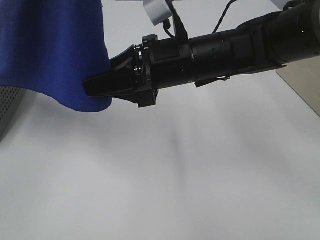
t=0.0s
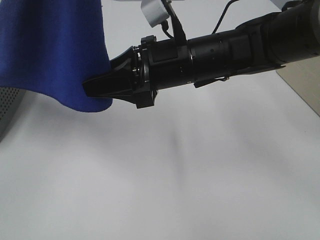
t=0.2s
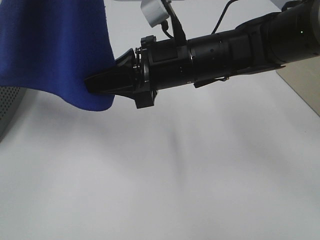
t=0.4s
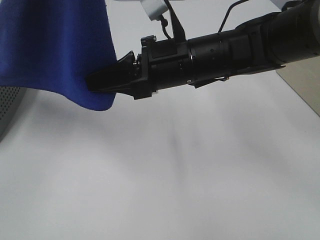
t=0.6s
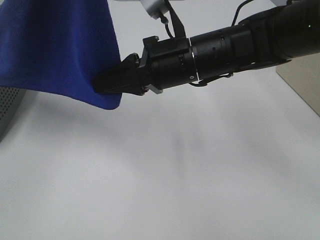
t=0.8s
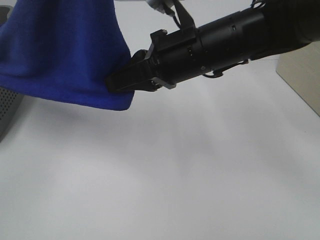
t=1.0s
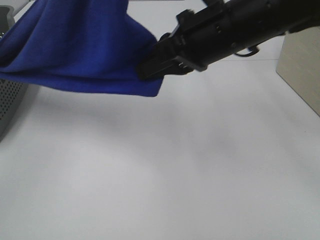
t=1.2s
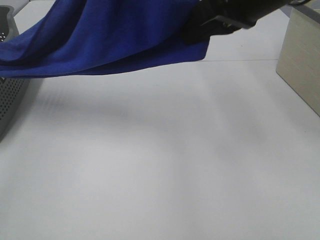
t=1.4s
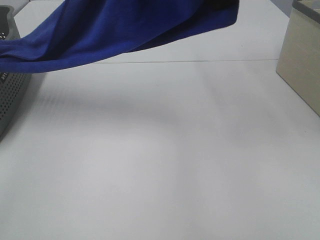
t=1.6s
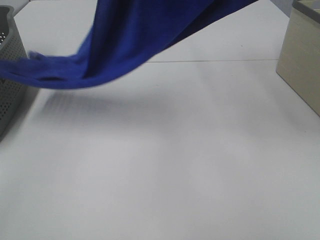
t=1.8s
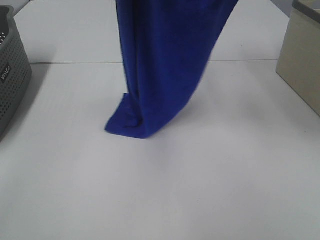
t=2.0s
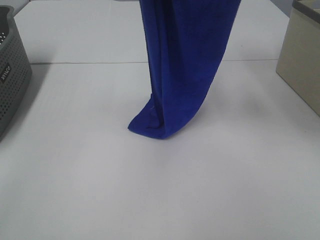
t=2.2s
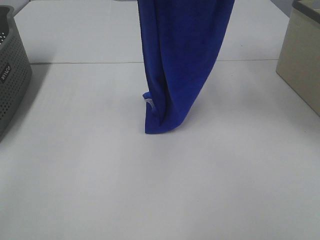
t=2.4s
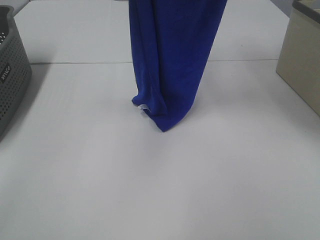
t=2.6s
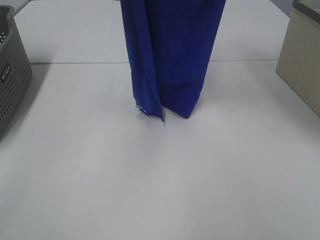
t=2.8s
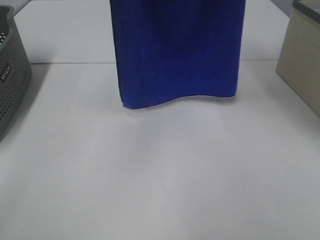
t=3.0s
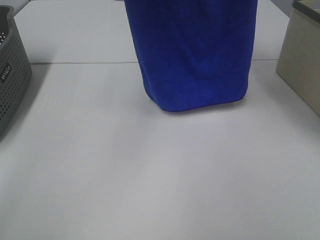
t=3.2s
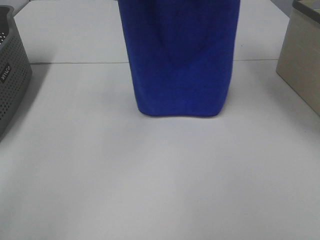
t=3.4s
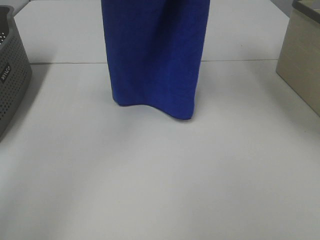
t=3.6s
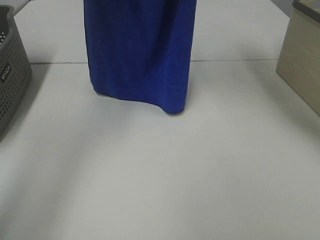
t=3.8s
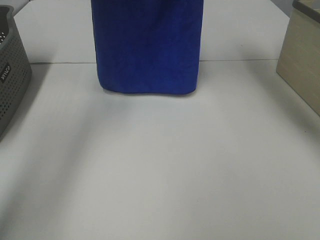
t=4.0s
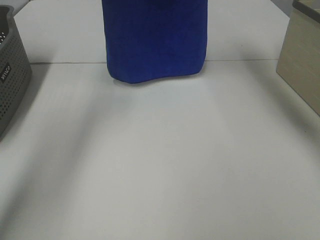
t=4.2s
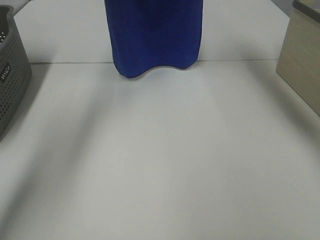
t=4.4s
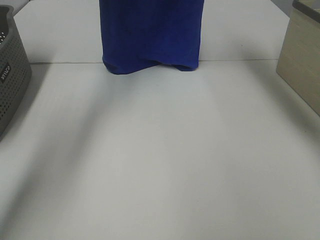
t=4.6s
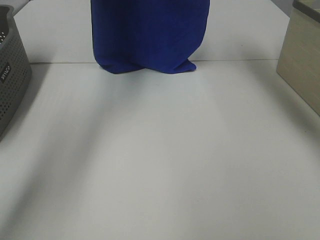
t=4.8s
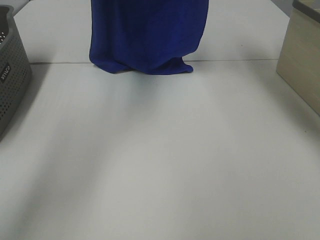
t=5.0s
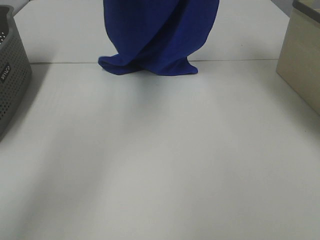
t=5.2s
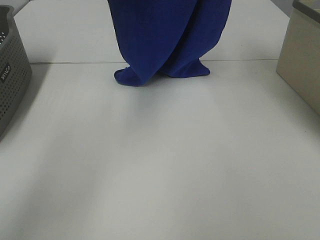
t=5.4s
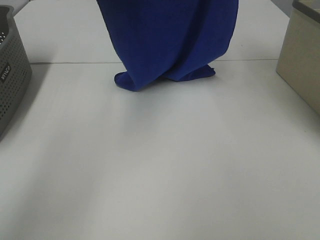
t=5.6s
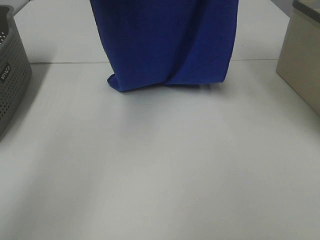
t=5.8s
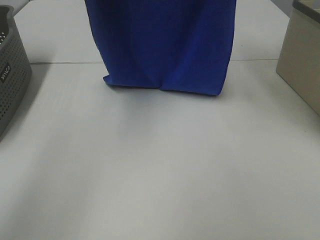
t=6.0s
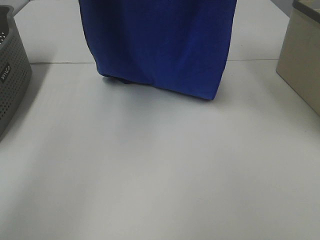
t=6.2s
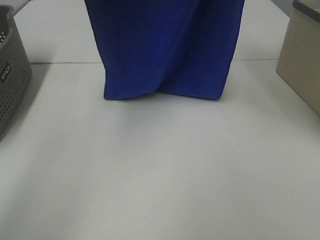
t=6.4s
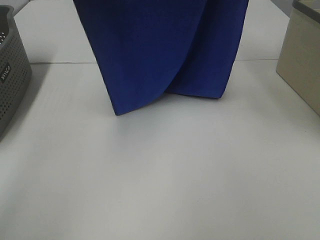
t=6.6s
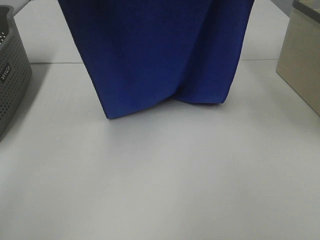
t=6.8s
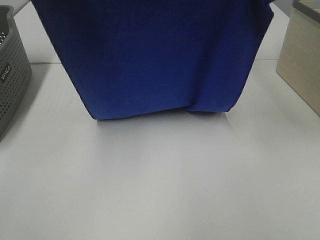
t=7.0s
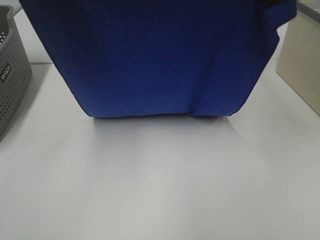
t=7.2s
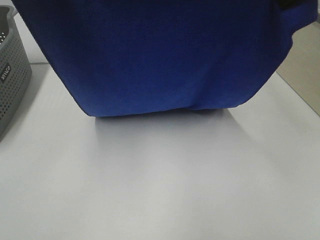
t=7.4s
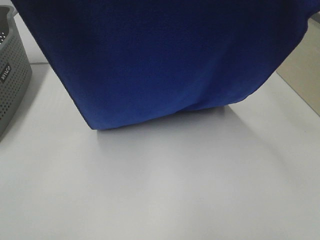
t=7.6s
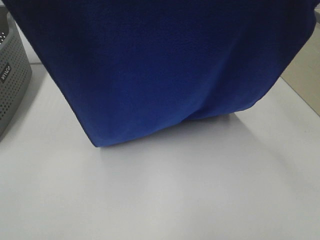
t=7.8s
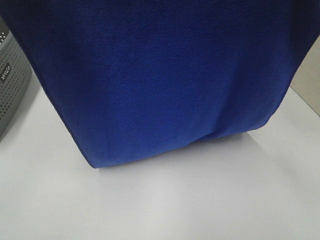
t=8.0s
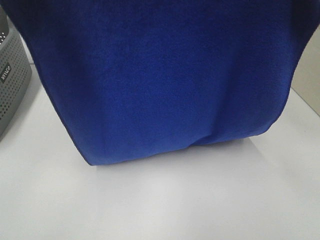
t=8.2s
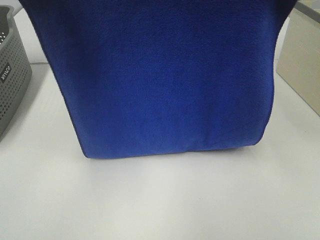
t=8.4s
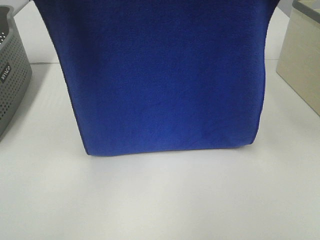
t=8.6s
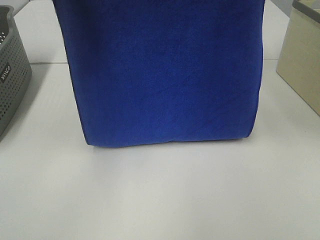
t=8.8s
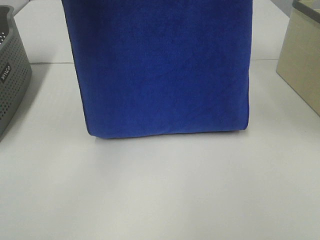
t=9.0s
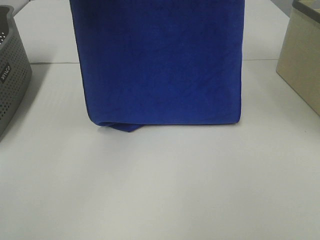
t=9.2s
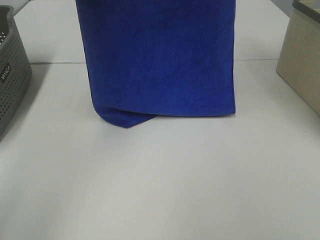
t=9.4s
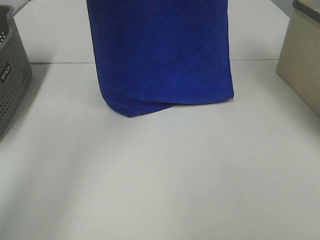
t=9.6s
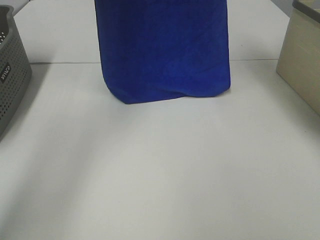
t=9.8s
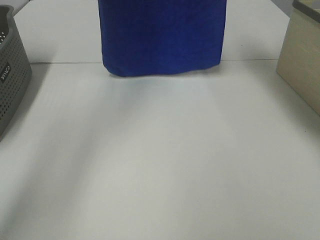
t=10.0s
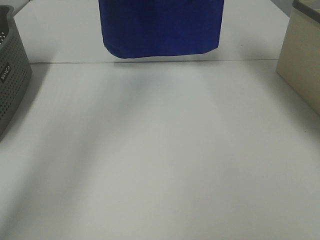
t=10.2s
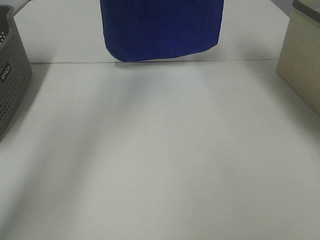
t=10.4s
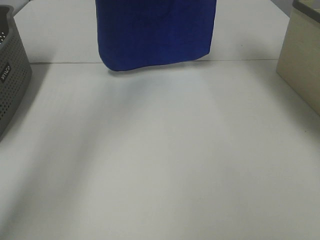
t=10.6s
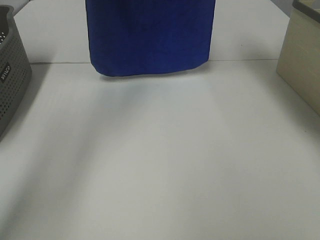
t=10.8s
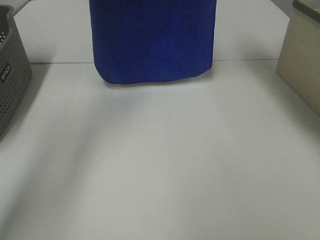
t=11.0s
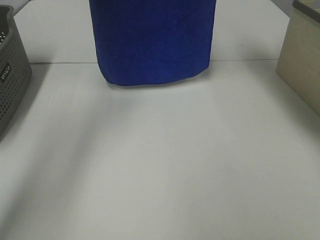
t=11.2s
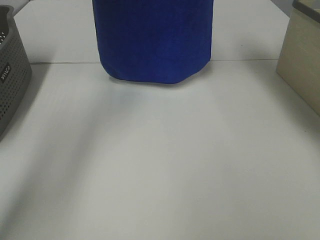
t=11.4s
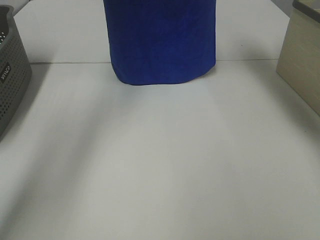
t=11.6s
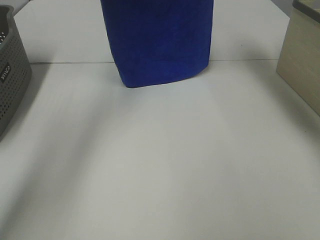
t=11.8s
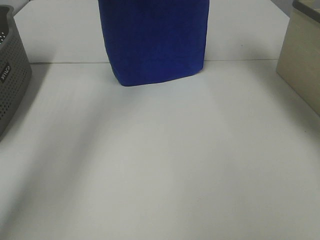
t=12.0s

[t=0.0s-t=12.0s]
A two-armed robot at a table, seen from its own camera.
Task of the whole recording: Remove the towel and place it.
t=0.0s to t=1.6s: The right gripper heads upward and to the right, covering roughly 20 cm, and closes up; the left gripper travels forward and to the right by about 10 cm.
t=1.6s to t=3.0s: The left gripper shifts roughly 10 cm forward and to the left. The right gripper goes some 15 cm upward.
t=3.0s to t=4.4s: The grippers both shift forward by some 15 cm.
t=4.4s to t=6.0s: The two grippers go about 10 cm backward.
t=6.0s to t=7.6s: Both grippers move backward, roughly 15 cm.
t=7.6s to t=9.0s: The right gripper heads forward, covering some 10 cm; the left gripper goes some 5 cm forward.
t=9.0s to t=10.4s: Both grippers move forward, some 15 cm.
t=10.4s to t=12.0s: The grippers stay close to where they were, moving slightly.

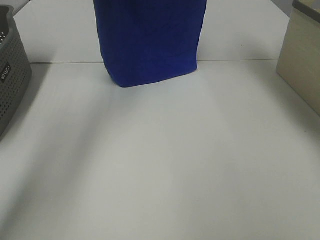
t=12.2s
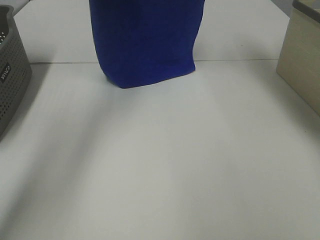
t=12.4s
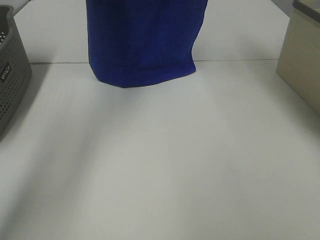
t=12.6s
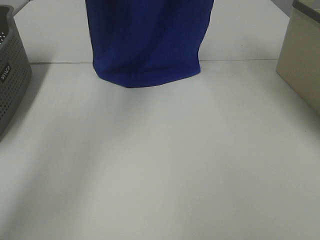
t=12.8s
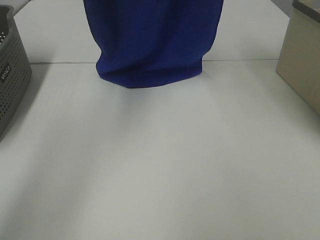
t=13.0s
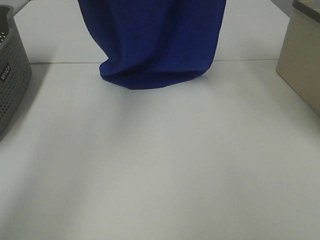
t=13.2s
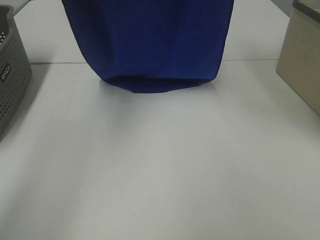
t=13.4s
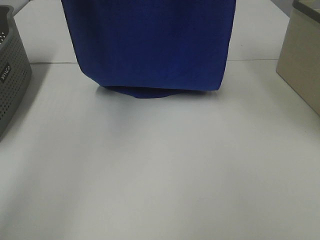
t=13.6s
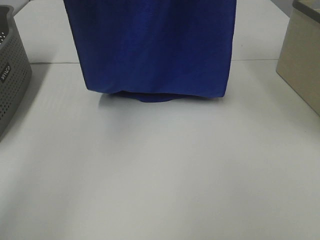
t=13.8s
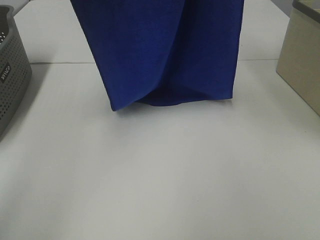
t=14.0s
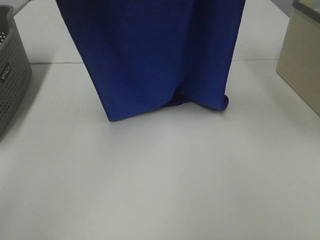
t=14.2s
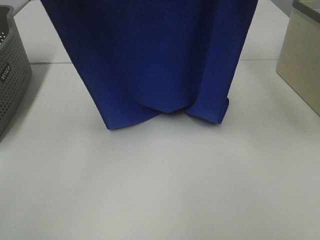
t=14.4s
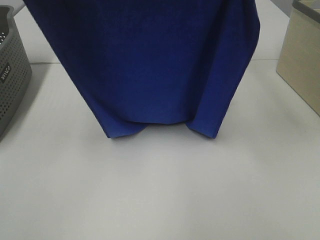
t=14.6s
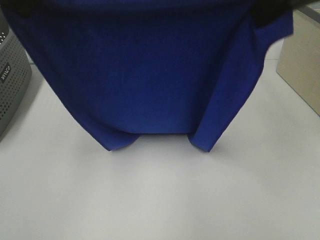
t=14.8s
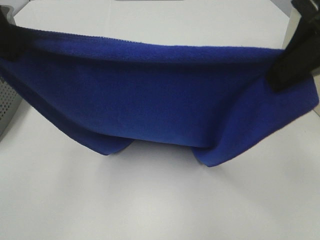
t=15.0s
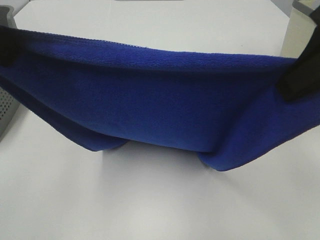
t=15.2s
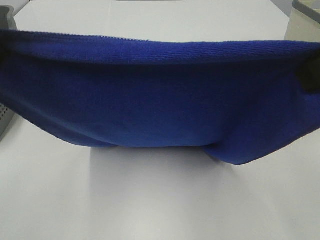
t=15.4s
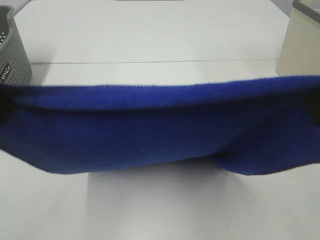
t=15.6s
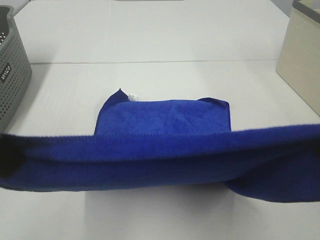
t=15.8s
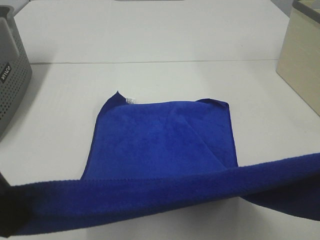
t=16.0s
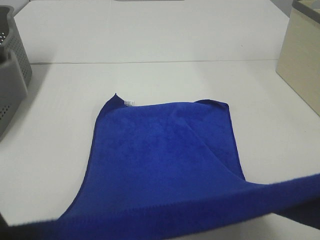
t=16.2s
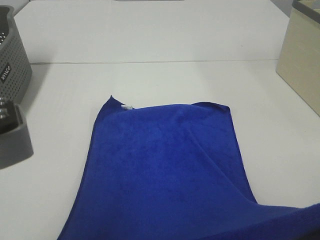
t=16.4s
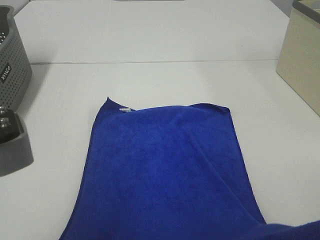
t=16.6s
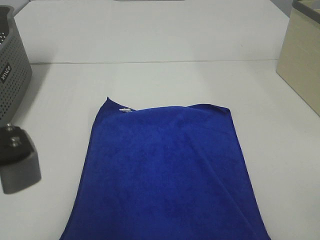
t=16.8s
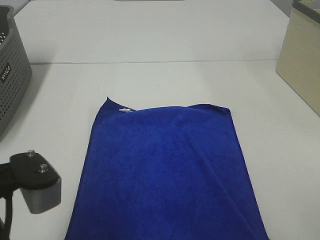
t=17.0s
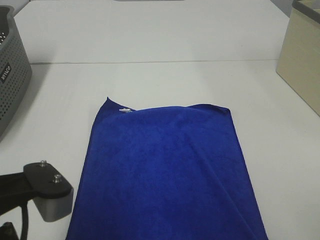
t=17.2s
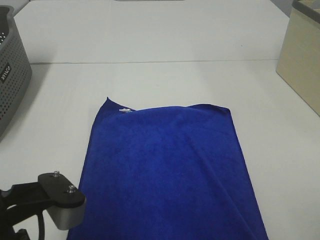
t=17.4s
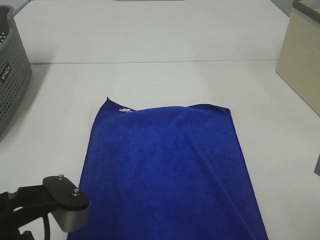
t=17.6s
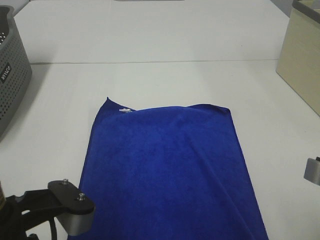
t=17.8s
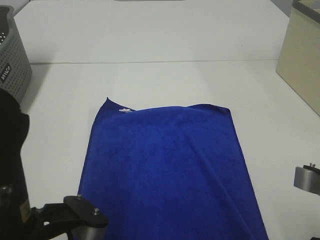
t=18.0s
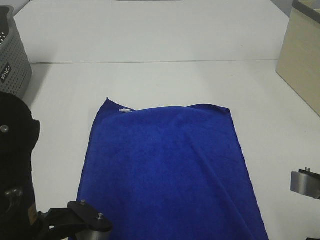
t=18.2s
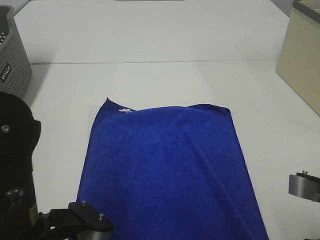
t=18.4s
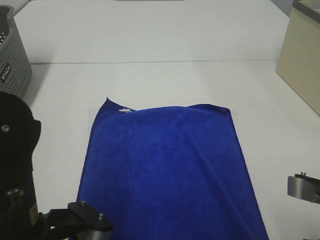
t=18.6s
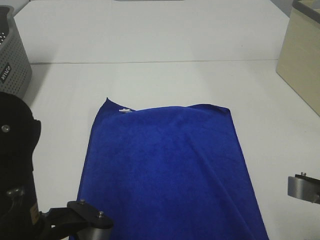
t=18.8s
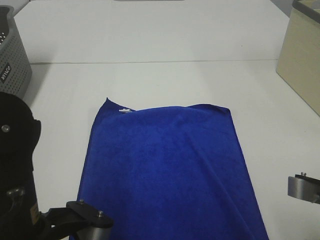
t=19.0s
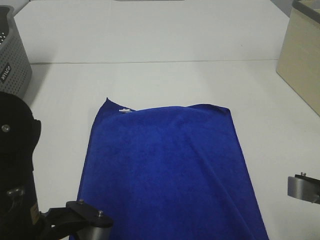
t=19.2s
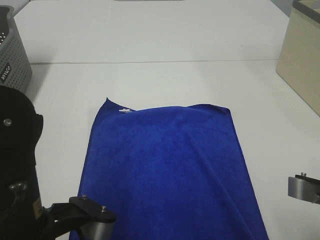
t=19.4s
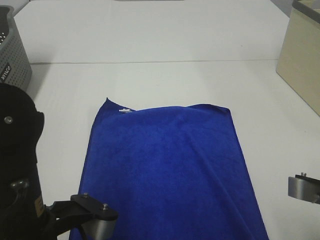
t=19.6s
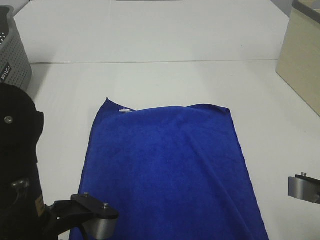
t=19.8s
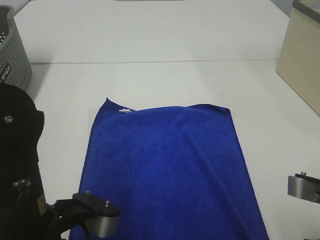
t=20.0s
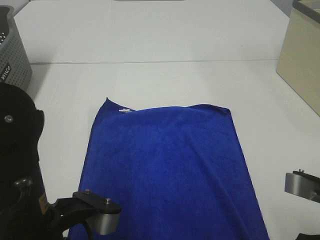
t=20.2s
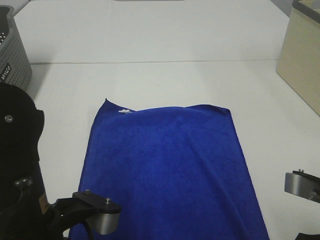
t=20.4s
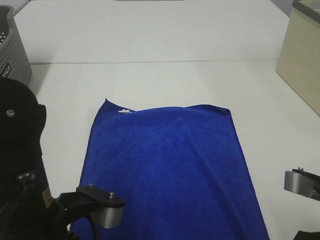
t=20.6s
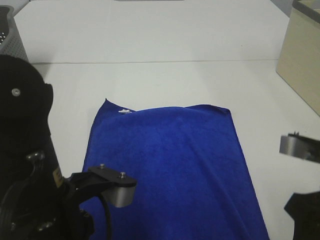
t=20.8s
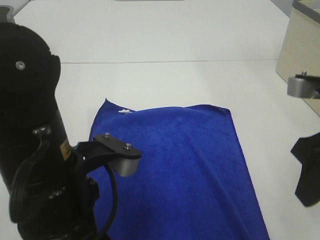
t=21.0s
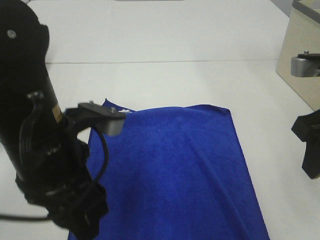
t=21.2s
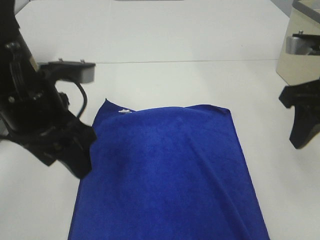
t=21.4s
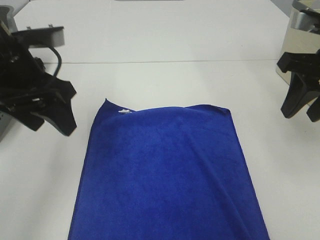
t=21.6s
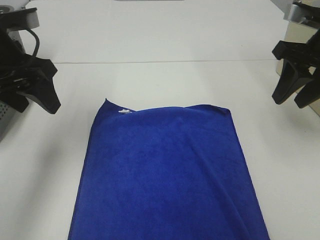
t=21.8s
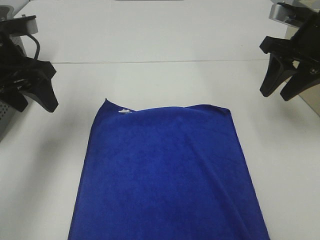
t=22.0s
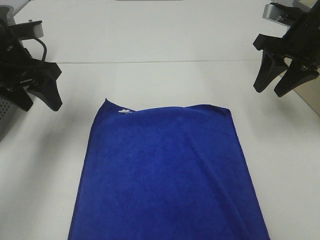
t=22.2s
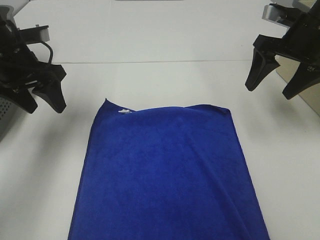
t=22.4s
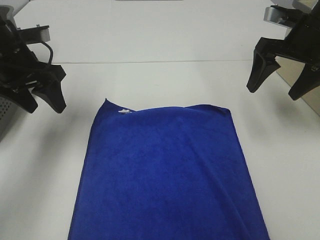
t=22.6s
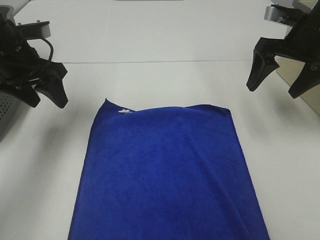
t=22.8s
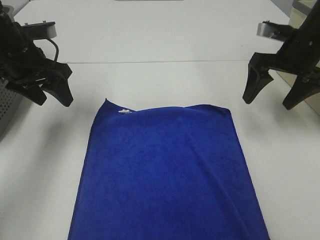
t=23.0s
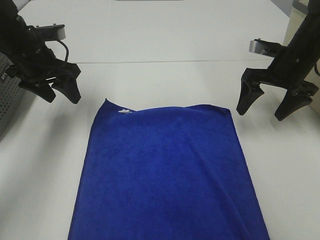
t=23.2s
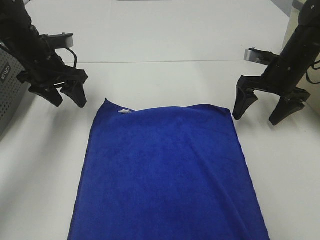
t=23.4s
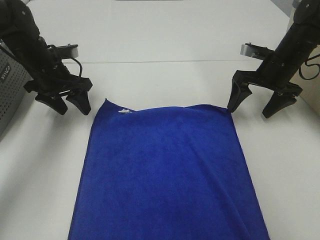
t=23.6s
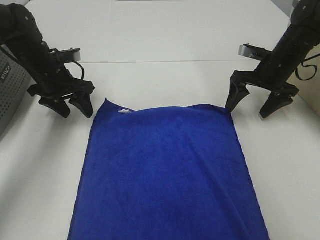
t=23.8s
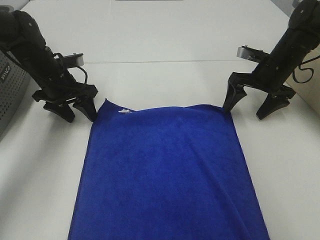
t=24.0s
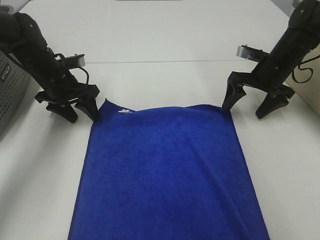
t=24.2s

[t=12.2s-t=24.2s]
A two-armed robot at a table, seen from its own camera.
Task of the whole recording: Remove the towel and place it.
Step, t=14.0s to t=22.4s: Left hand:adjust the blue towel.
Step, t=14.0s to t=22.4s: Right hand:adjust the blue towel.
t=12.2s to t=13.8s: The right gripper travels backward and upward by approximately 15 cm. Meanwhile the left gripper shifts some 15 cm backward.
t=13.8s to t=15.2s: The grippers both shift backward and downward by roughly 20 cm.
t=15.2s to t=16.6s: Both grippers move backward and downward, approximately 15 cm.
t=16.6s to t=18.2s: The grippers both shift downward by approximately 10 cm.
t=18.2s to t=19.8s: Neither gripper changes place.
t=19.8s to t=21.2s: The left gripper heads forward, covering about 10 cm, and opens up. The right gripper is displaced forward and upward by approximately 15 cm.
t=21.2s to t=22.6s: The left gripper heads forward and to the left, covering some 20 cm, while the right gripper is displaced forward by roughly 15 cm, and opens up.
t=22.6s to t=24.2s: The grippers both shift downward and forward by approximately 15 cm.
